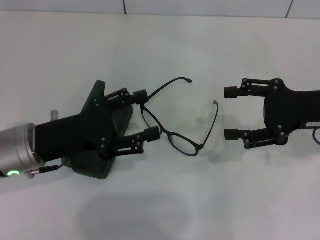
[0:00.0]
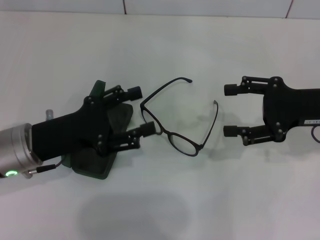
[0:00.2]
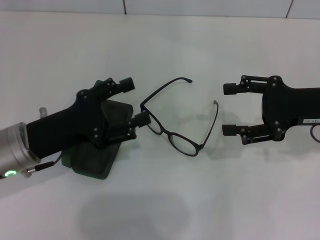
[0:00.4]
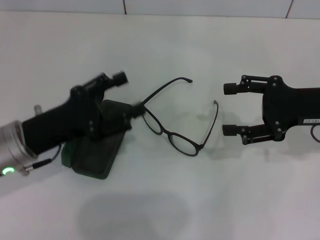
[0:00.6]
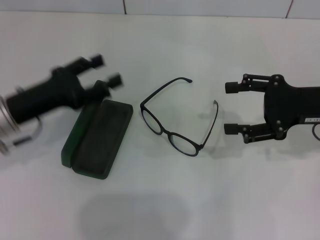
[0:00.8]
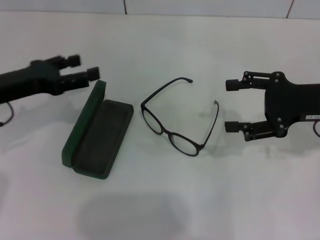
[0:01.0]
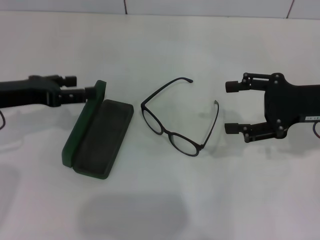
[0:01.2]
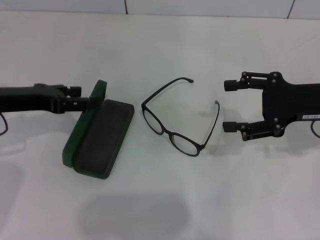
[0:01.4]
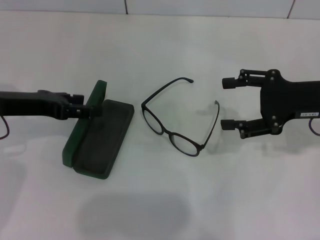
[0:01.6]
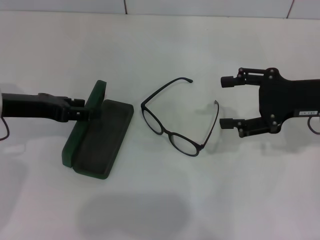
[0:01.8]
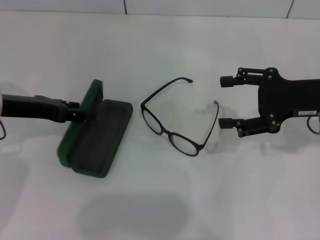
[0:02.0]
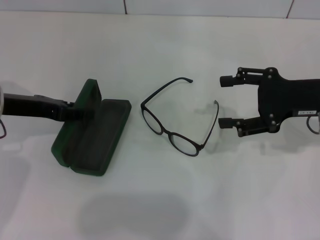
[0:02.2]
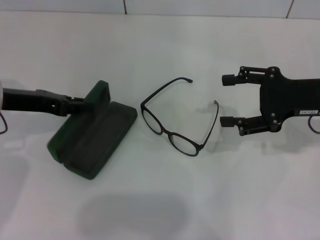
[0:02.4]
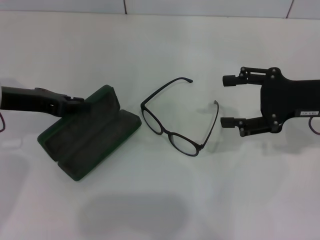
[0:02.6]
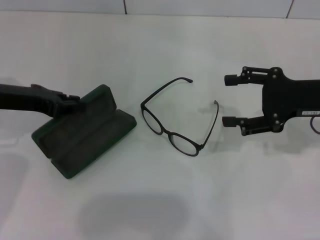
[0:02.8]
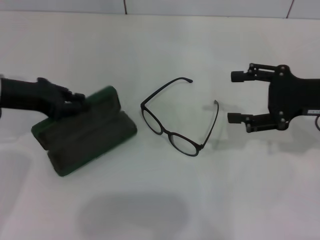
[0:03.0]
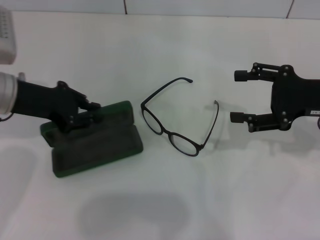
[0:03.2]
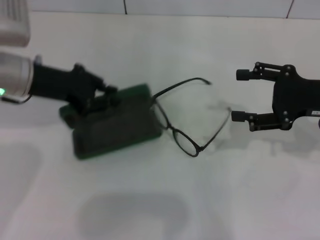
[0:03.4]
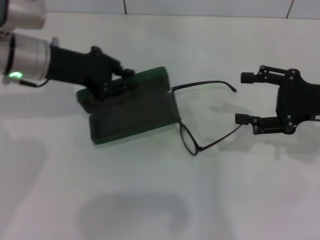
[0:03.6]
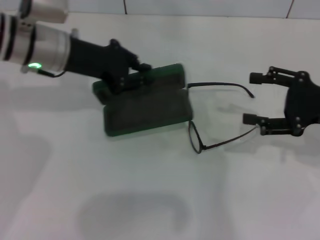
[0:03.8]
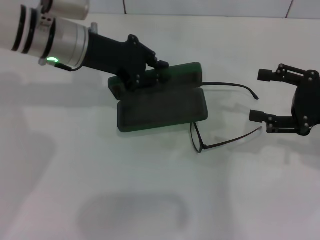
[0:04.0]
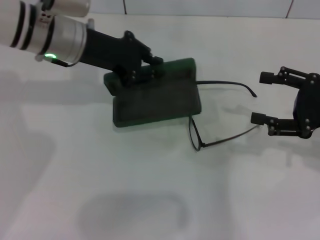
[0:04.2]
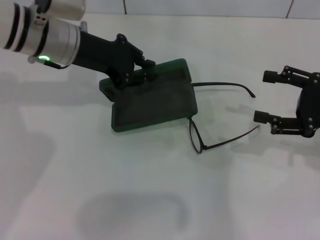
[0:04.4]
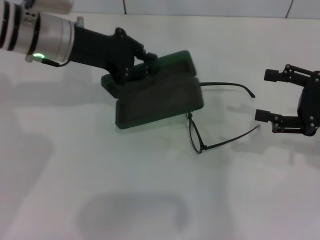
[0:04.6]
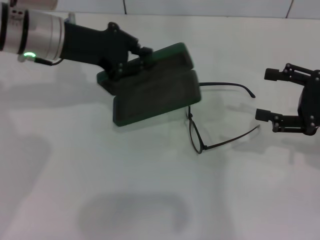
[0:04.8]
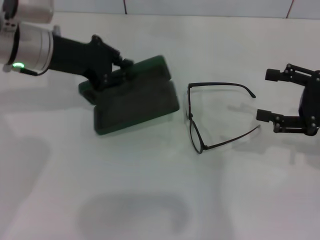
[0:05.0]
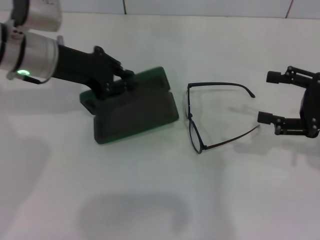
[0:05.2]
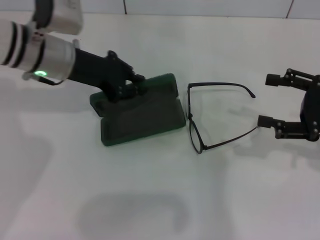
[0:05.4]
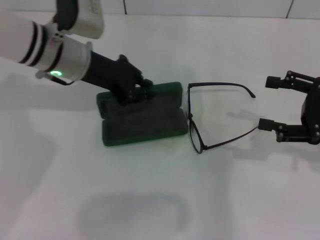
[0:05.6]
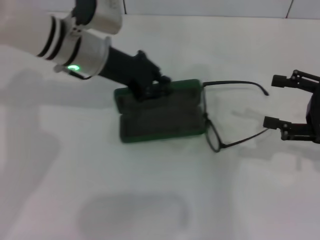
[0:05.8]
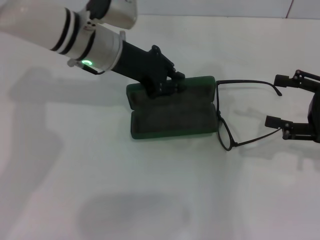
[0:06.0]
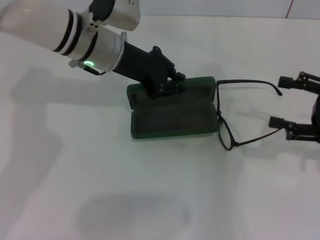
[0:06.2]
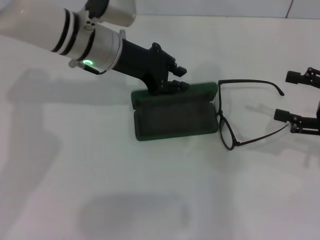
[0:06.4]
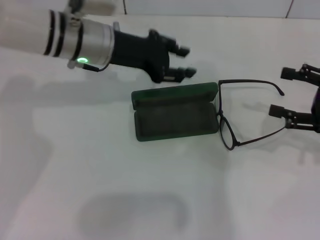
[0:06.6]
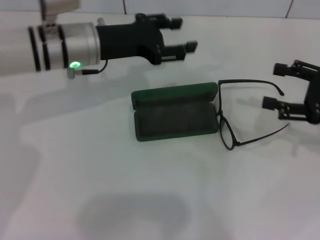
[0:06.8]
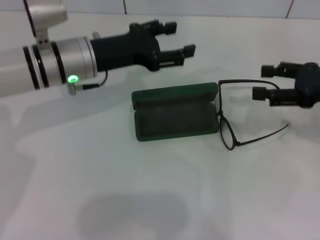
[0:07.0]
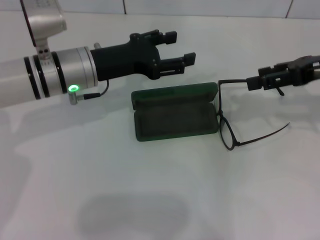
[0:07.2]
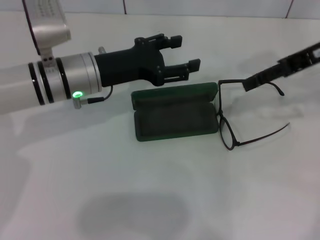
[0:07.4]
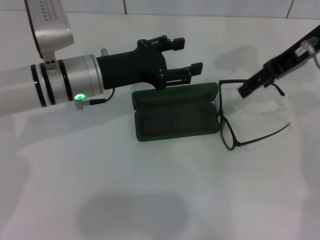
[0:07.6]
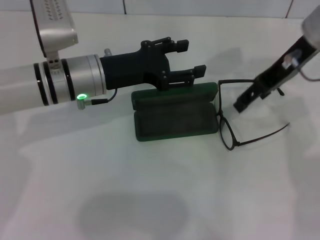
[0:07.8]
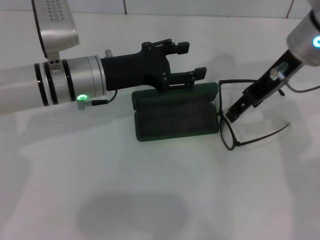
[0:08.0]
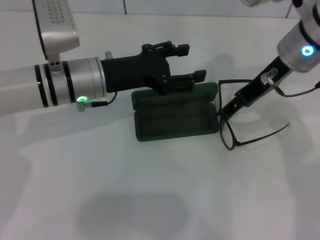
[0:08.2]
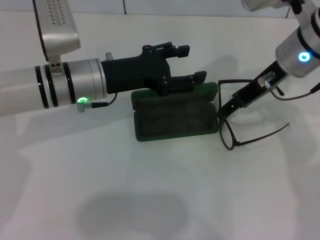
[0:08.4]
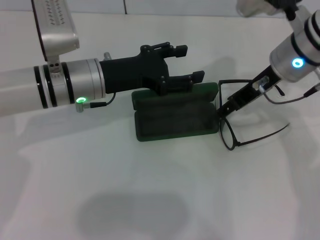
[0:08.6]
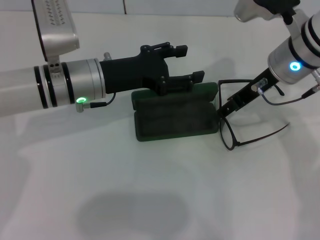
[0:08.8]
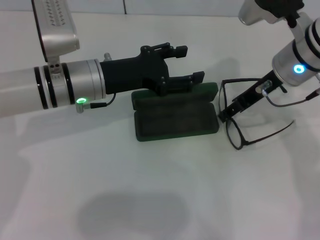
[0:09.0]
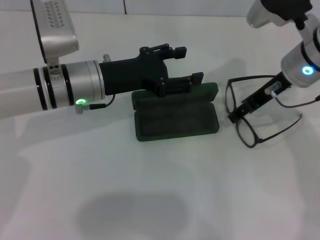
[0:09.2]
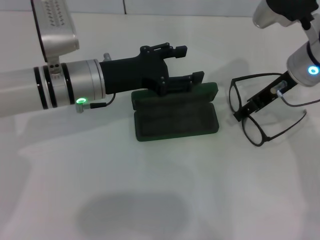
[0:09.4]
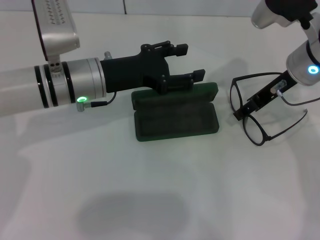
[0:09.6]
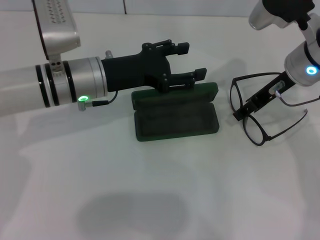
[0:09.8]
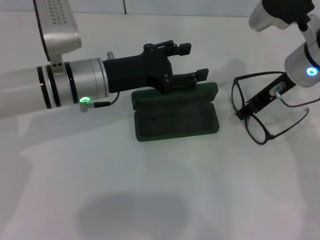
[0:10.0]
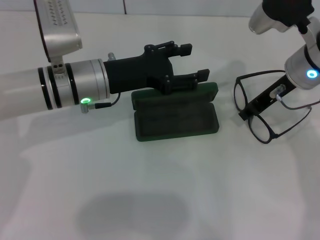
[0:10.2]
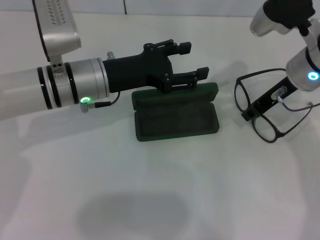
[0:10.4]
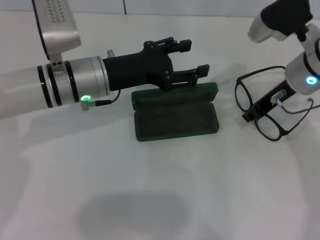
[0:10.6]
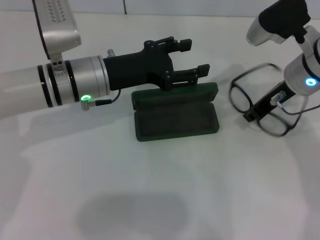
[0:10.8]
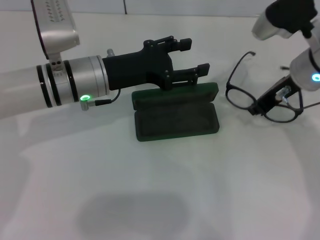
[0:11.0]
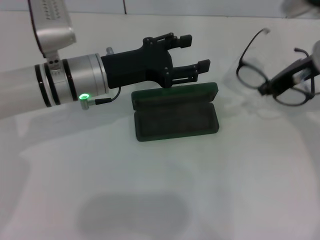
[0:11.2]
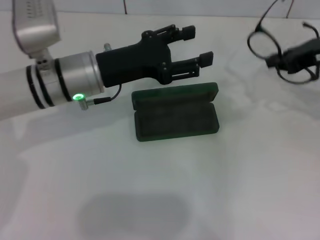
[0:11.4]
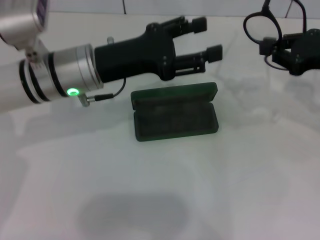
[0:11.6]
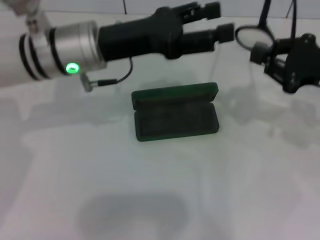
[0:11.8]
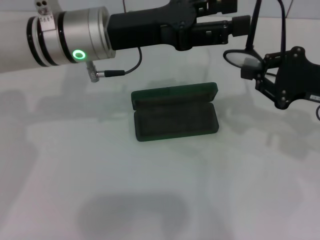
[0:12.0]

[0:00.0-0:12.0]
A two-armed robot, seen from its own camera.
Step, 0:00.0 to 0:02.4: Grab the glasses case with your left hand.
Step, 0:02.8 to 0:06.4: Place the glasses case in the center of the table with your left hand.
Step, 0:06.6 to 0:10.8: Grab the eyeglass frame with your right hand.
0:00.0 to 0:01.6: The left gripper is displaced to the left and forward by roughly 10 cm.
0:01.6 to 0:03.0: The left gripper closes its fingers.
0:03.0 to 0:04.4: The right gripper shifts by about 5 cm, while the left gripper moves to the right and forward, some 10 cm.
0:04.4 to 0:06.0: The left gripper heads to the right, covering about 5 cm.
0:06.0 to 0:07.6: The left gripper goes approximately 5 cm backward, and opens up, while the right gripper moves upward, to the left and forward, approximately 20 cm.
0:07.6 to 0:09.0: The right gripper goes some 5 cm downward.
0:09.0 to 0:10.4: The right gripper closes up.
0:10.4 to 0:12.0: The right gripper is displaced to the right and backward by about 10 cm. The left gripper travels upward by some 5 cm.

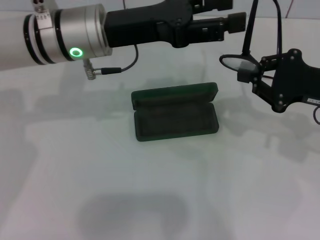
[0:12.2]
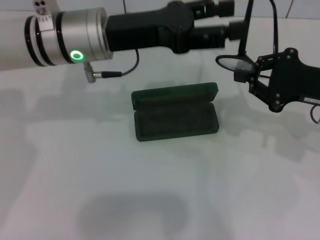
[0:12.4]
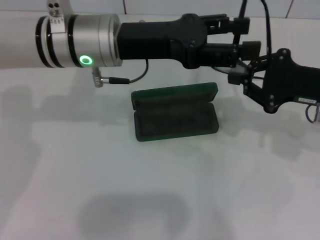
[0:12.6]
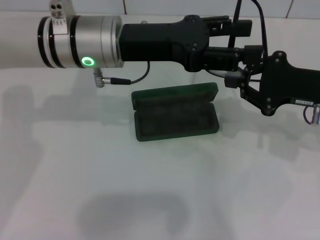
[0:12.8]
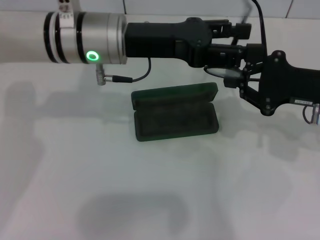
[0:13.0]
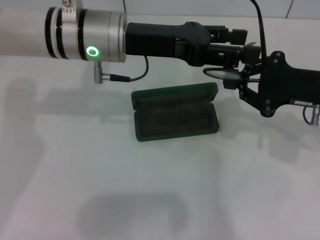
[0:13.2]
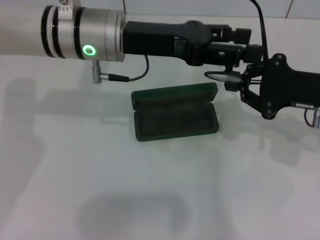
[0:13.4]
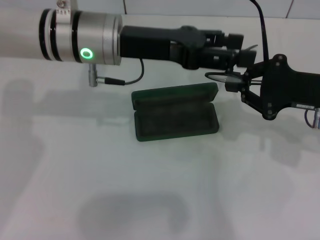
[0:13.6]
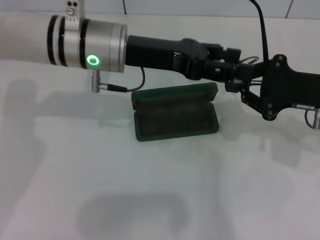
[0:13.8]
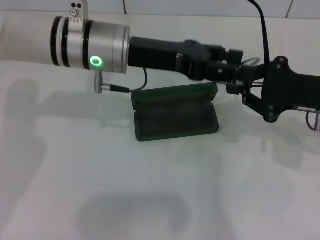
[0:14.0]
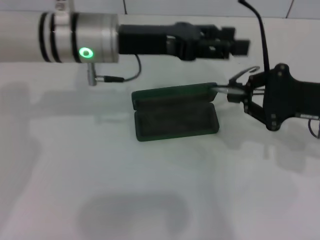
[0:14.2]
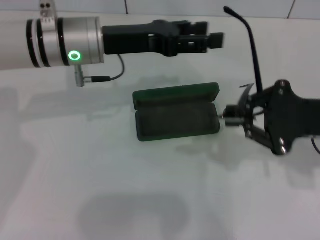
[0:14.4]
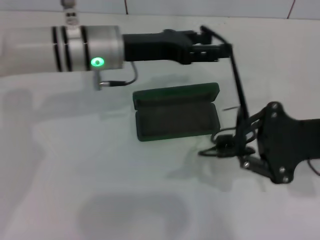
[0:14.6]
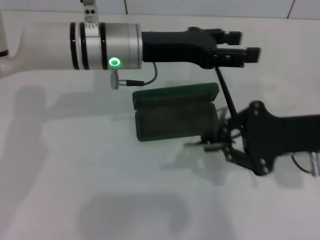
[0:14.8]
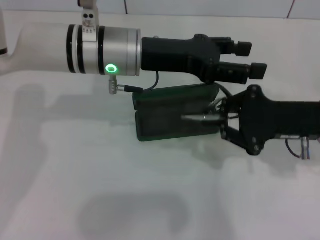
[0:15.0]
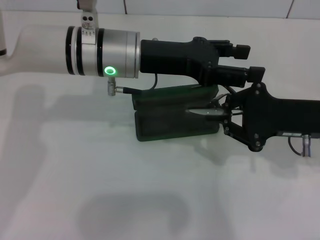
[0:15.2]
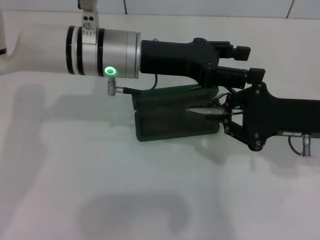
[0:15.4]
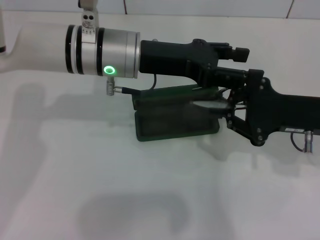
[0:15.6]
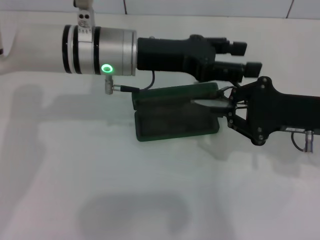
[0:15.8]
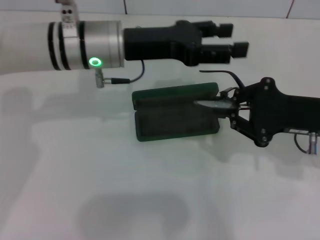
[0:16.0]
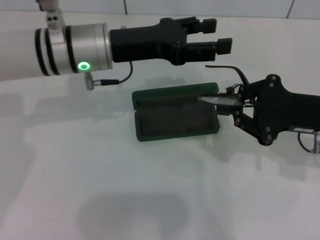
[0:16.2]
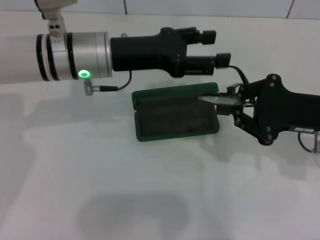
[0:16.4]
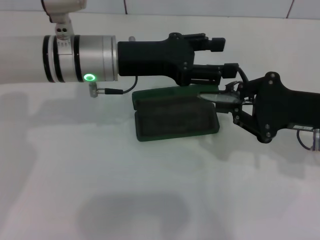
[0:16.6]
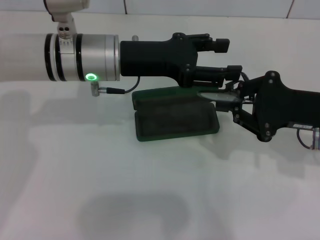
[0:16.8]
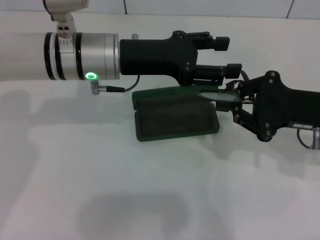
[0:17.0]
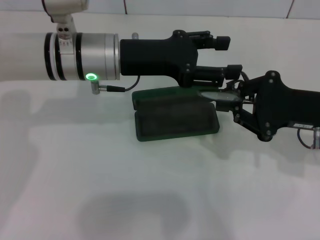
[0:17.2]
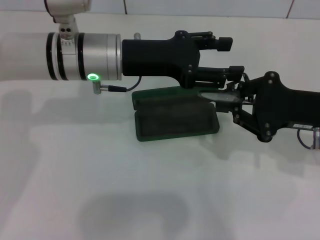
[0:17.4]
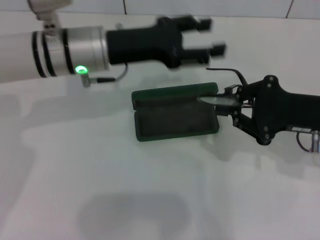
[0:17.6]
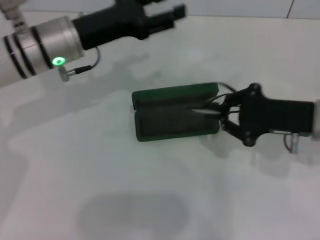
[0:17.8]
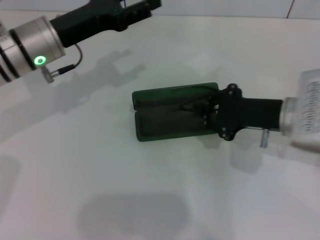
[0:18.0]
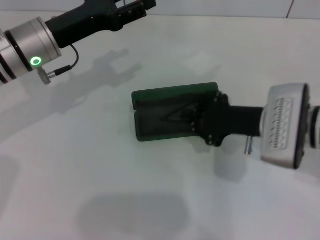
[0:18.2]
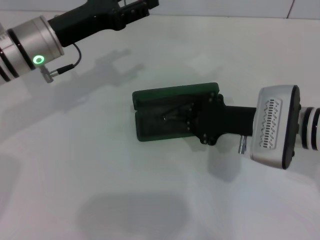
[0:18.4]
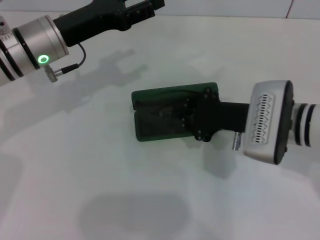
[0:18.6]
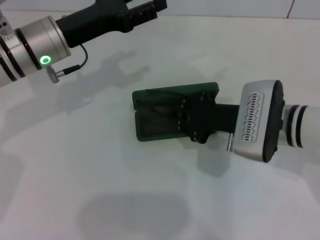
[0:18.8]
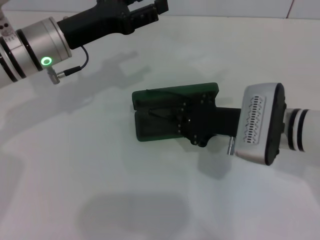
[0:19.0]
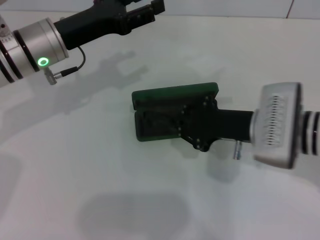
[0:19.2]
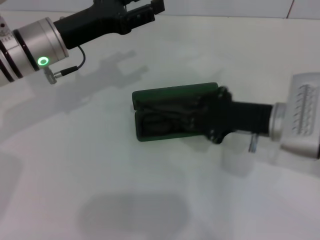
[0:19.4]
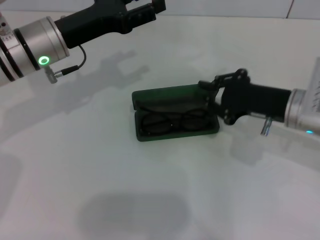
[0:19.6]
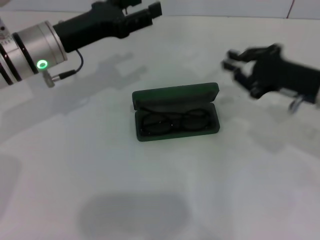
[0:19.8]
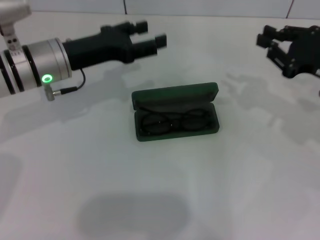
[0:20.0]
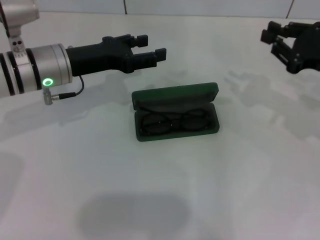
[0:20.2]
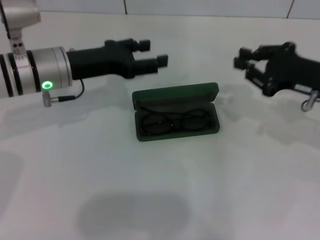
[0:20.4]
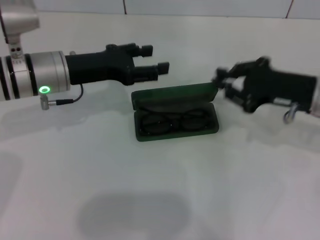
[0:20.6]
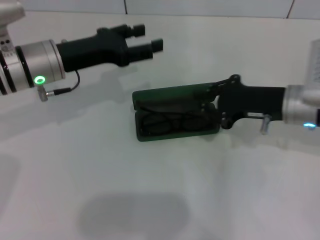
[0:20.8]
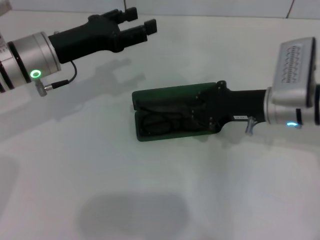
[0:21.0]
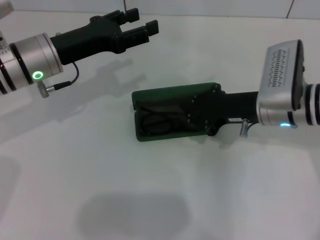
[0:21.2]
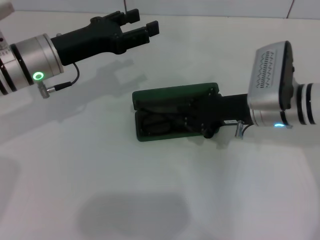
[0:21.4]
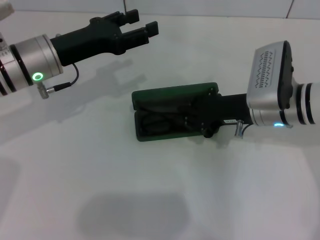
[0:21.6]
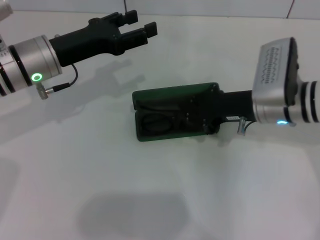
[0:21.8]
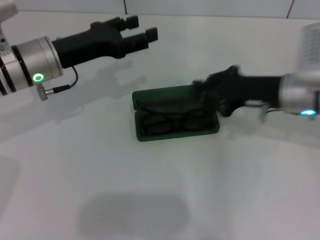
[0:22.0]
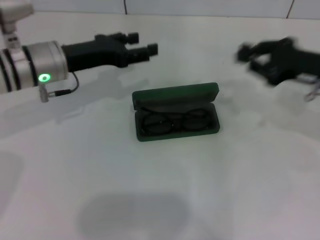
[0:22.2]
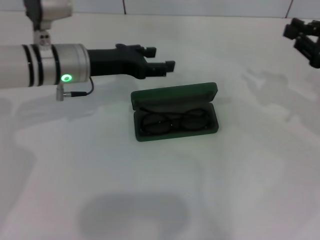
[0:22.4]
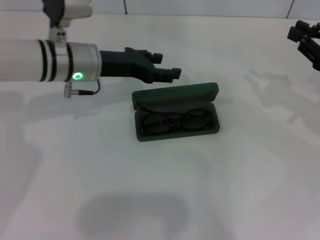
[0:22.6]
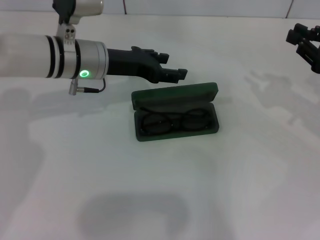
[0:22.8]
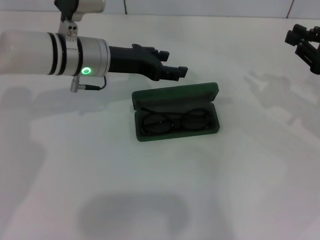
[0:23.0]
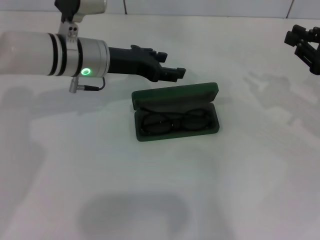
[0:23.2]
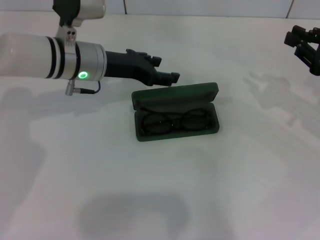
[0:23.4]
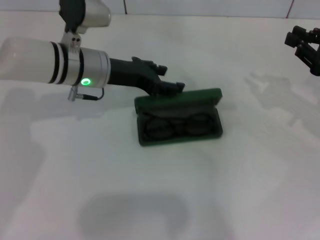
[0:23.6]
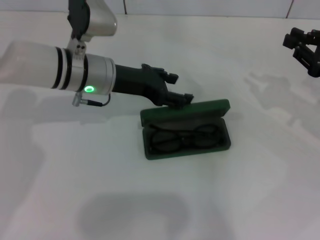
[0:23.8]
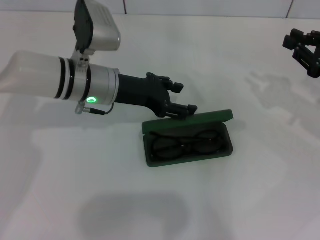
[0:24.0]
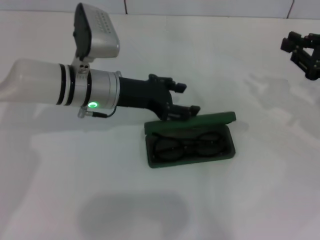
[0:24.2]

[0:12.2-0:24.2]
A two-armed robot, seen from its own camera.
Step, 0:12.2 to 0:17.4: Fold the frame with your left hand.
Step, 0:17.6 to 0:21.6: Put the glasses into the case with your right hand.
0:15.2 to 0:16.6: There are only small adjustments of the grippers.
0:16.6 to 0:18.2: The grippers both shift to the left by approximately 10 cm.
0:18.2 to 0:19.8: The right gripper moves to the right, some 10 cm.
0:19.8 to 0:21.2: The right gripper is displaced to the left by roughly 10 cm.
0:21.2 to 0:22.6: The right gripper travels to the right by some 15 cm. The left gripper changes place by roughly 5 cm.
0:22.6 to 0:24.2: The grippers move only a little.
